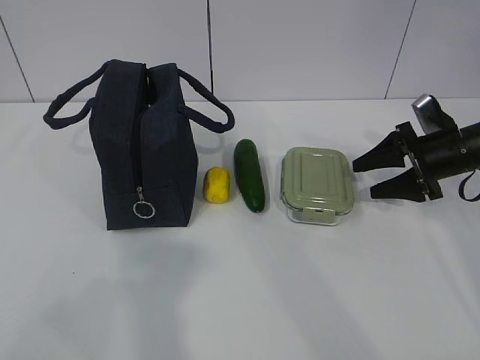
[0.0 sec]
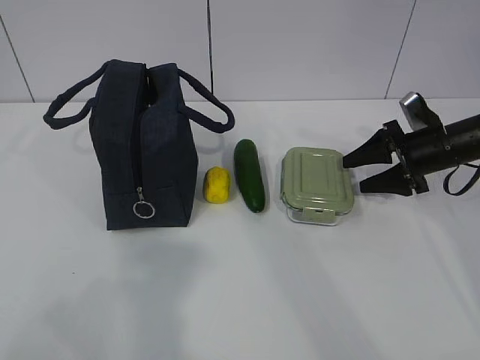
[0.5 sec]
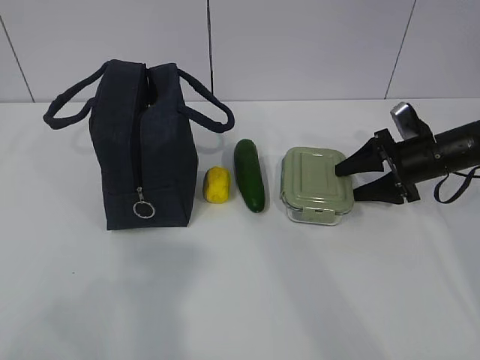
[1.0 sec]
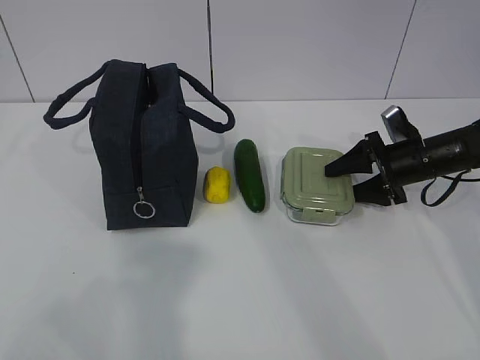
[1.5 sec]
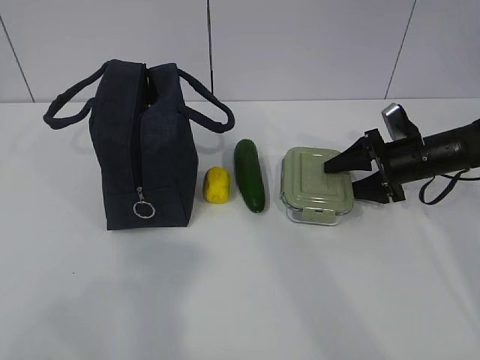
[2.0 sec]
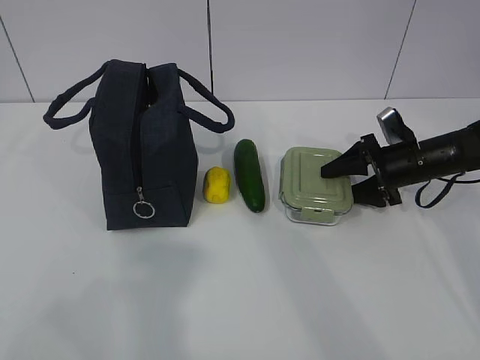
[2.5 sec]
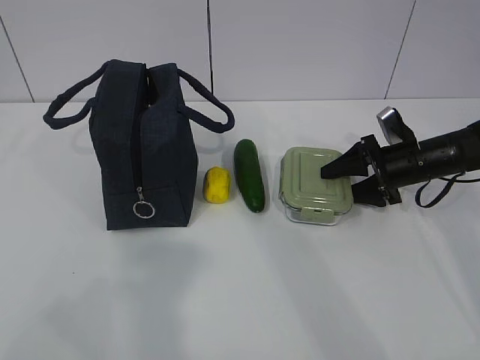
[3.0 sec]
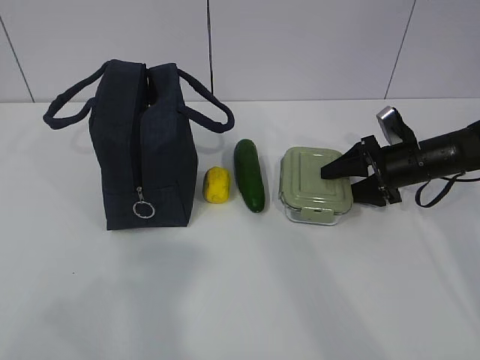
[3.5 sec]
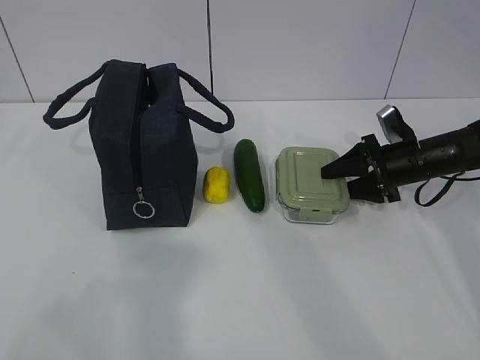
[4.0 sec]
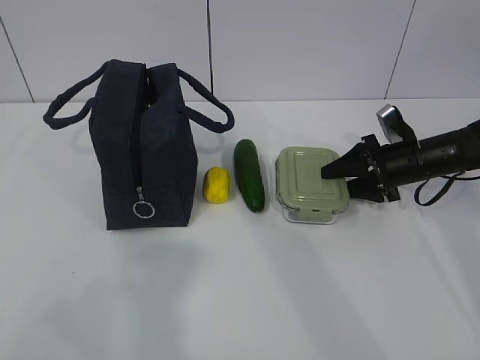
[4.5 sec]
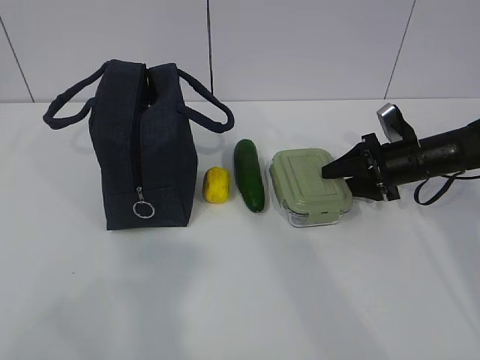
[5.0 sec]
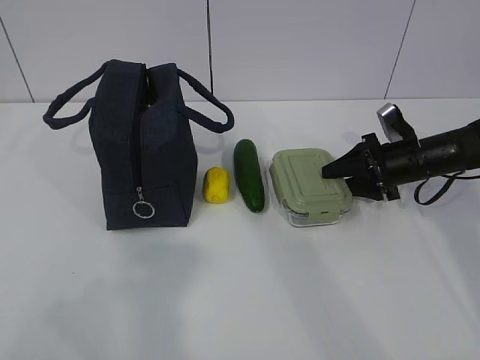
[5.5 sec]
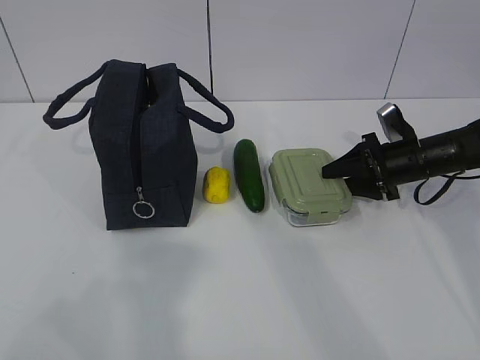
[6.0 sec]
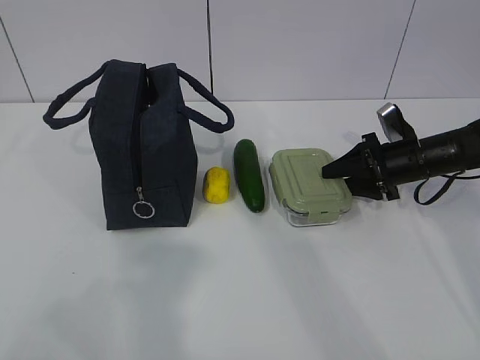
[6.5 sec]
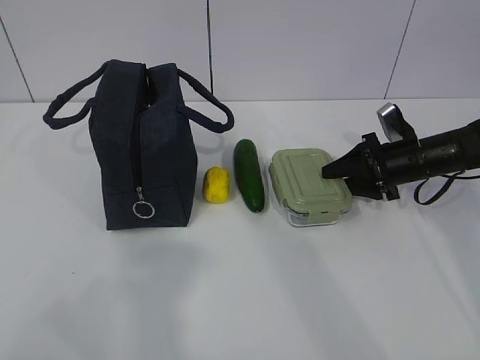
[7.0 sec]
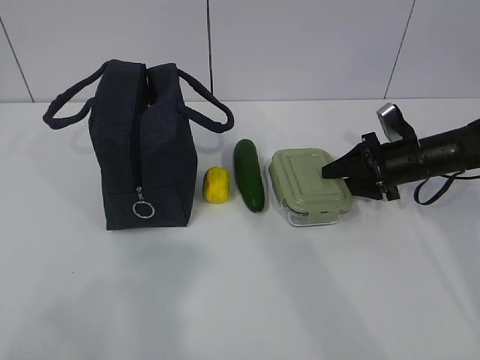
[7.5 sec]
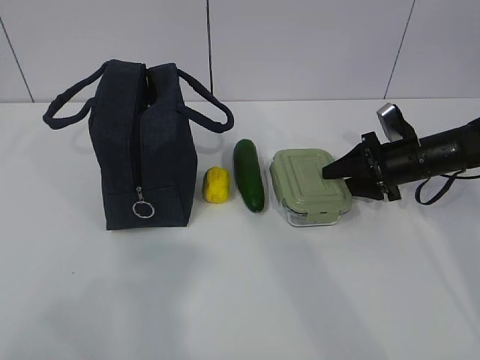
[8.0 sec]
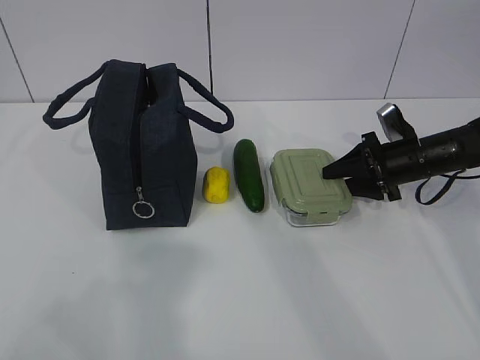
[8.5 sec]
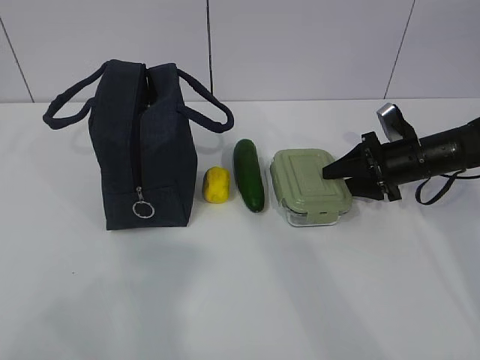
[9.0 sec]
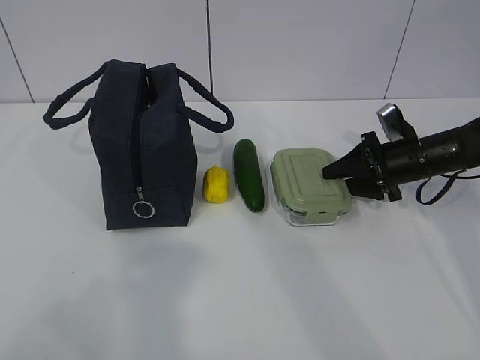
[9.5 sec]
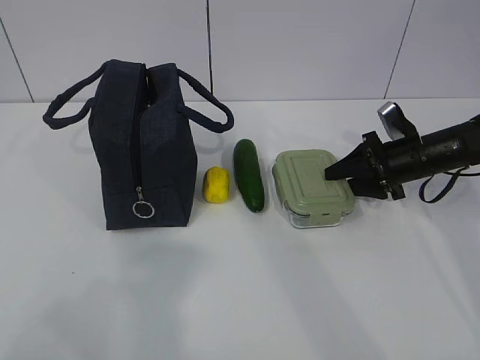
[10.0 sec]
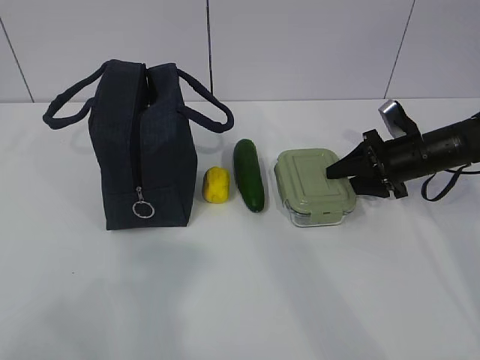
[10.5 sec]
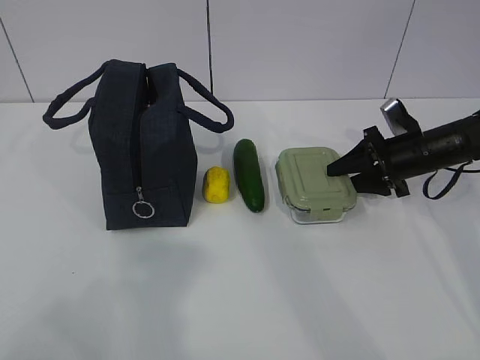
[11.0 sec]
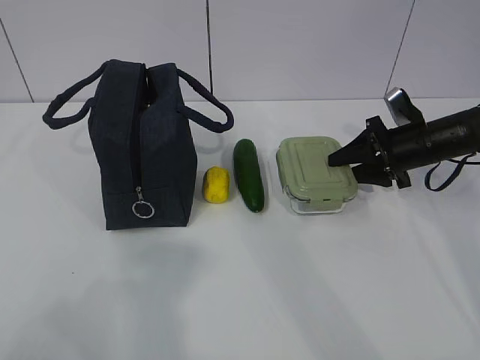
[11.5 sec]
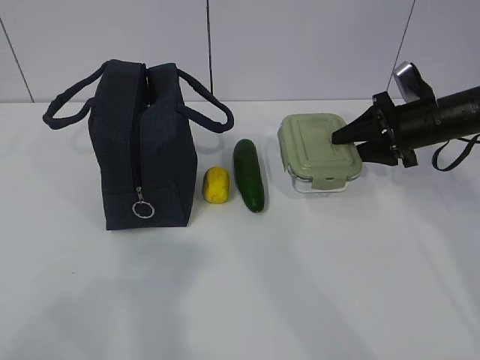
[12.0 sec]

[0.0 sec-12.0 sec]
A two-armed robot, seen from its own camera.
Step, 0.0 sec to 8.0 sec: Grab the lunch box with your right hand.
0.0 sec to 2.0 sec: The right gripper shifts by some 5 cm.
2.0 sec to 4.0 sec: Both grippers stay about where they are.
4.0 sec to 10.0 sec: Both grippers stay about where they are.
10.0 sec to 12.0 sec: The right gripper heads upward, covering roughly 5 cm.

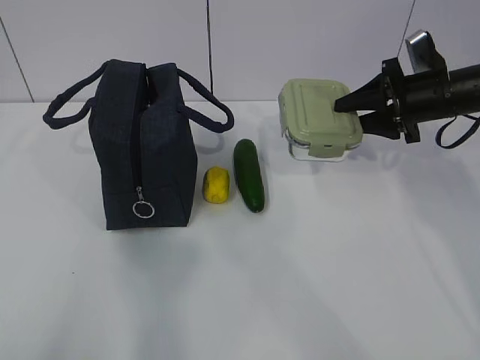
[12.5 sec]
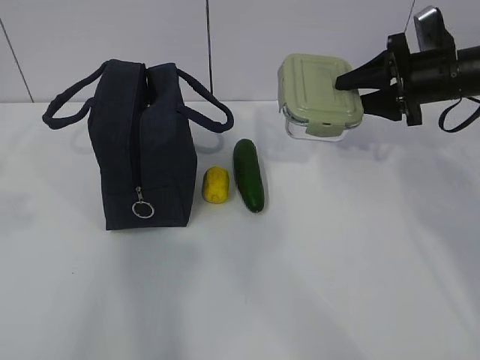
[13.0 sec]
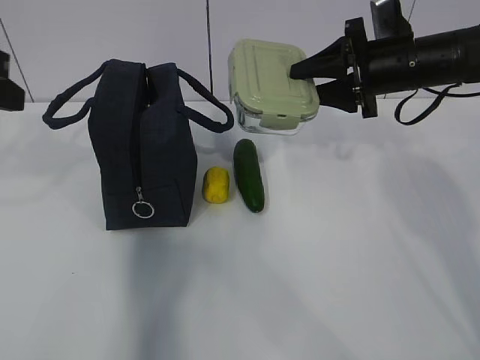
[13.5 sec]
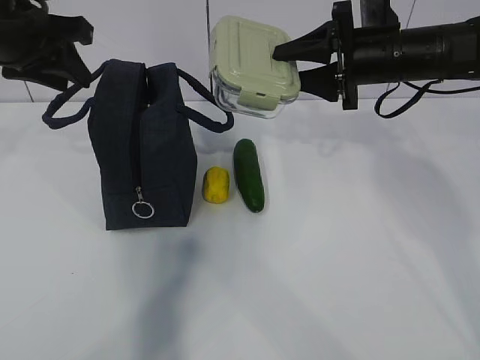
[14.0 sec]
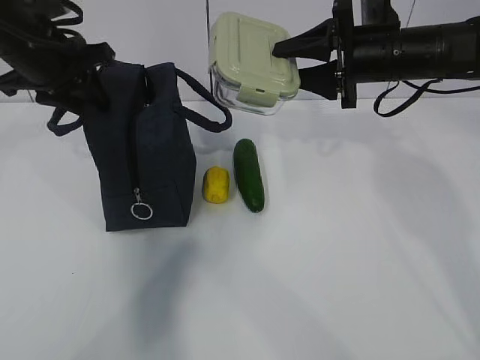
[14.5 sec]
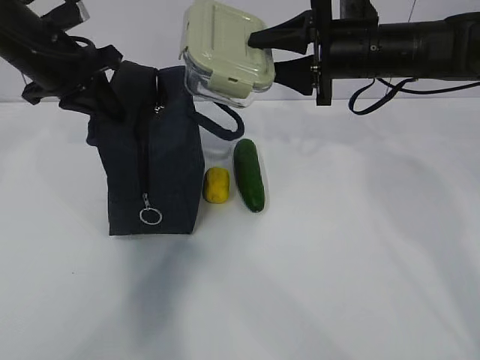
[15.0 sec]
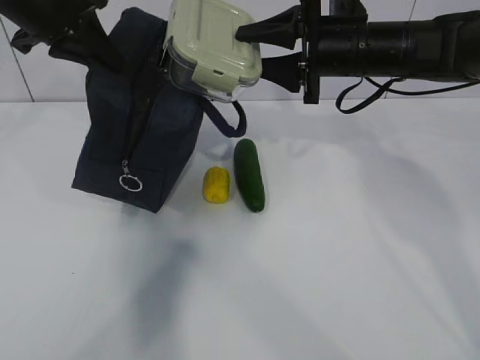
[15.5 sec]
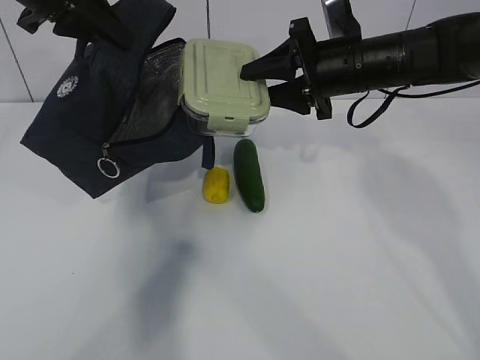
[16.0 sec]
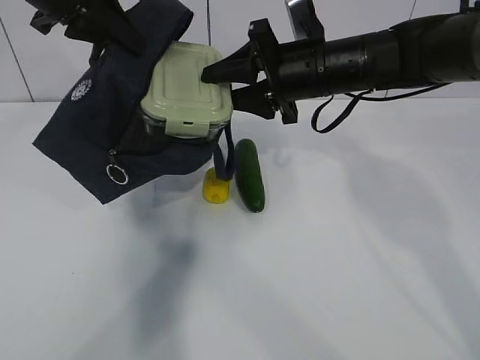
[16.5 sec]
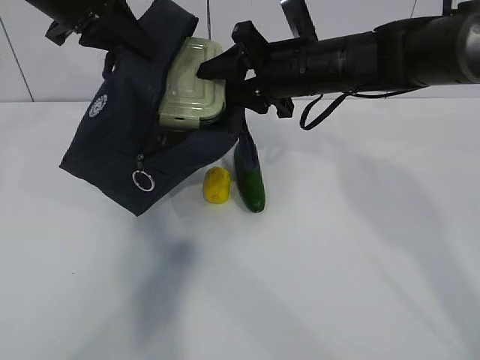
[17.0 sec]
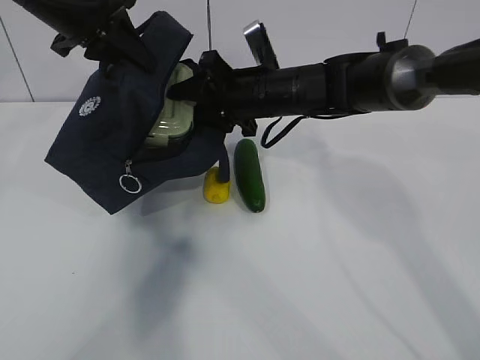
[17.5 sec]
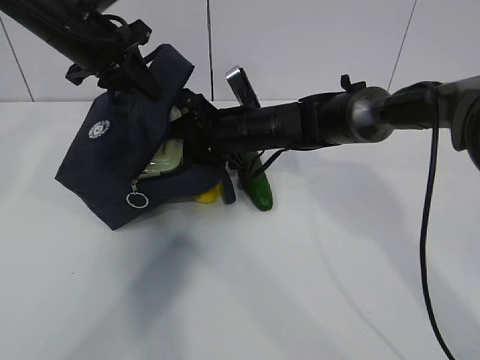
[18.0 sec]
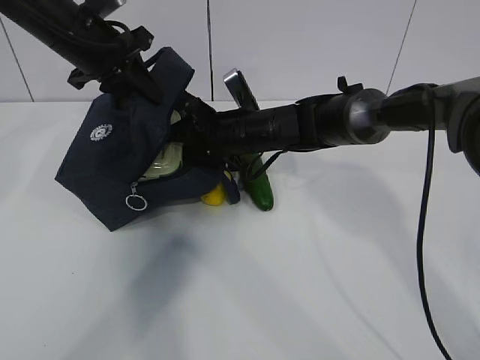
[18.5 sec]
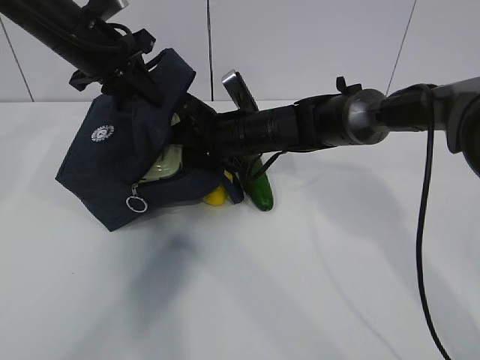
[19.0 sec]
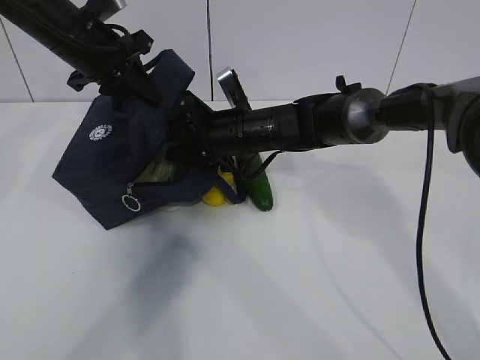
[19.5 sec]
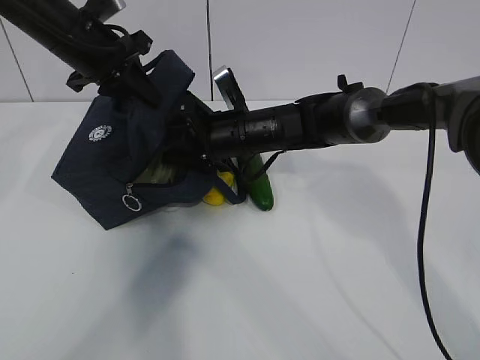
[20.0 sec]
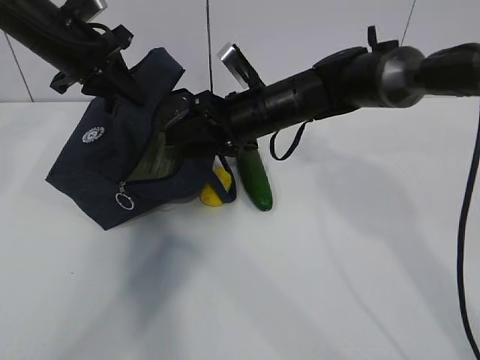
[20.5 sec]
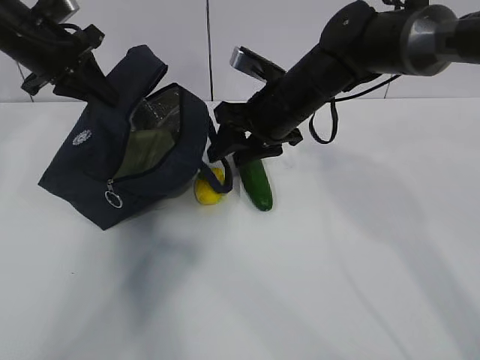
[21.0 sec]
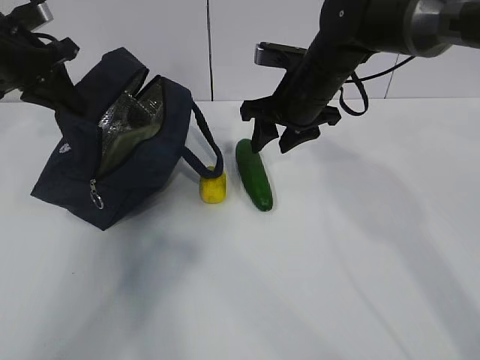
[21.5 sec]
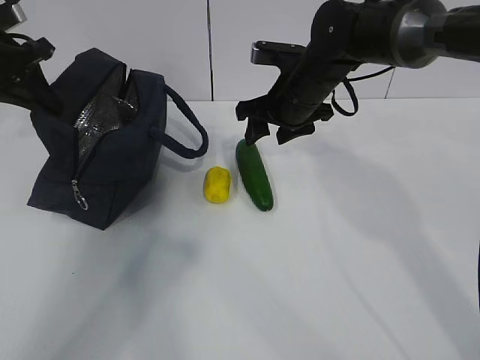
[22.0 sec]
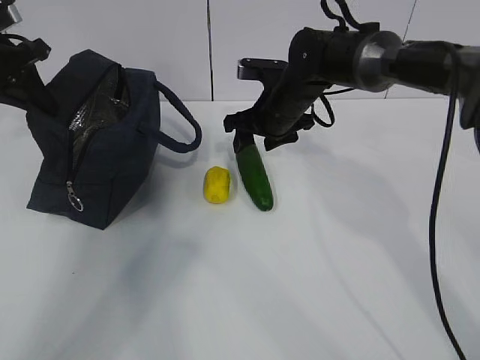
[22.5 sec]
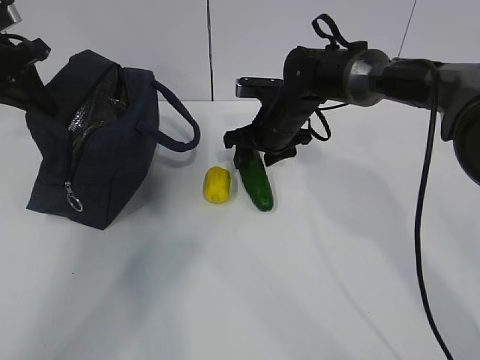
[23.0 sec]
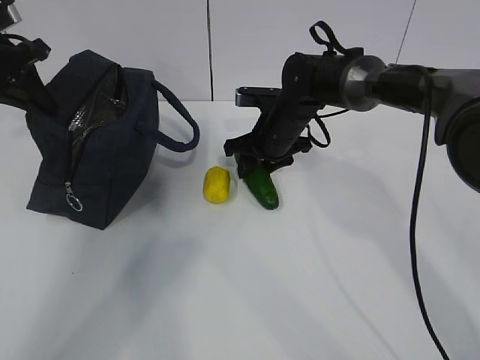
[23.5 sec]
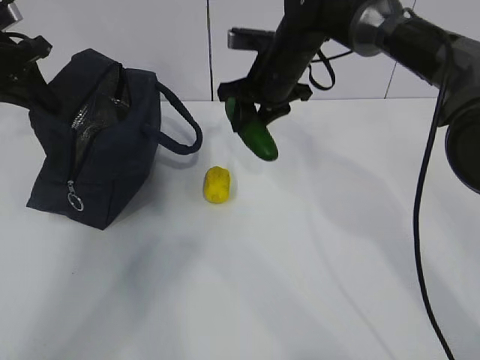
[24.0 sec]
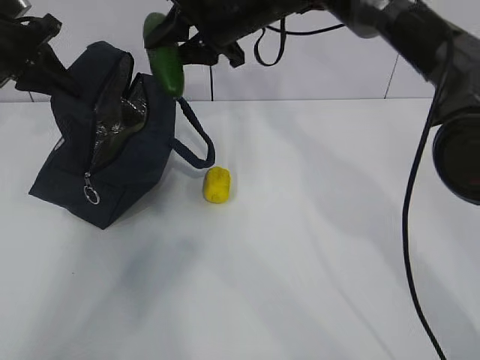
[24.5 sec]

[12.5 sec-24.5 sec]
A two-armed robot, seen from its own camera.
Step, 12.5 sec to 15.5 sec: Place it into the bag with your right hand.
Step, 16.0 sec to 18.5 sec: Grab the cucumber with your right hand.
Step, 19.0 sec to 20.0 sec: Place it into the bag with your right hand.
12.5 sec to 14.5 sec: The right gripper is displaced to the left and upward by roughly 10 cm; the left gripper shifts approximately 35 cm forward.
14.5 sec to 16.5 sec: The right gripper travels to the left by approximately 10 cm, while the left gripper goes some 10 cm upward, and closes.
16.5 sec to 18.5 sec: The right gripper heads downward and to the left, covering roughly 15 cm. Meanwhile the left gripper heads downward, covering some 10 cm.
18.5 sec to 20.5 sec: The right gripper moves about 5 cm.
20.5 sec to 22.5 sec: The right gripper ends up about 5 cm from where it was. The left gripper is displaced to the left by some 10 cm.
22.5 sec to 24.5 sec: The right gripper shifts about 15 cm upward and to the left.

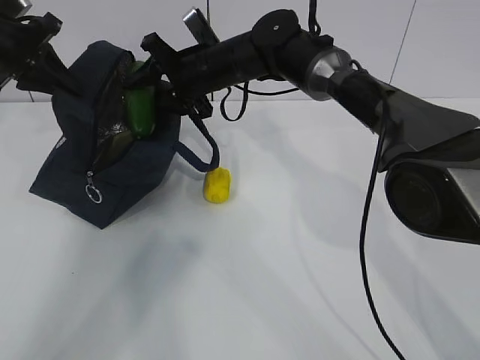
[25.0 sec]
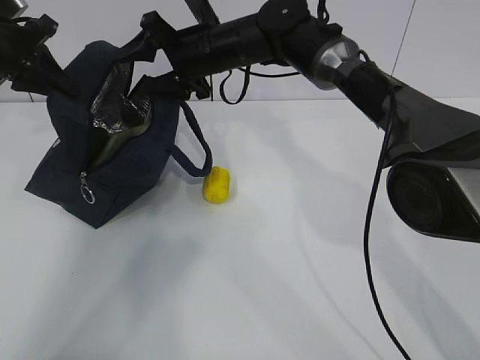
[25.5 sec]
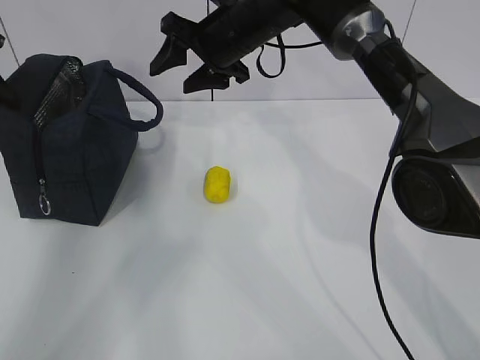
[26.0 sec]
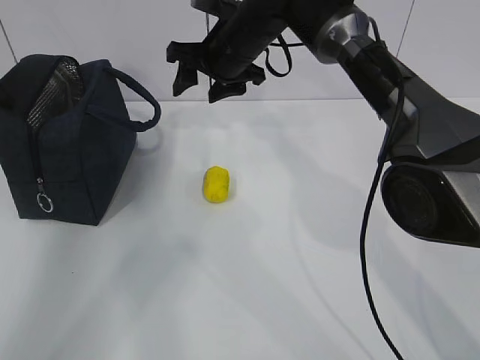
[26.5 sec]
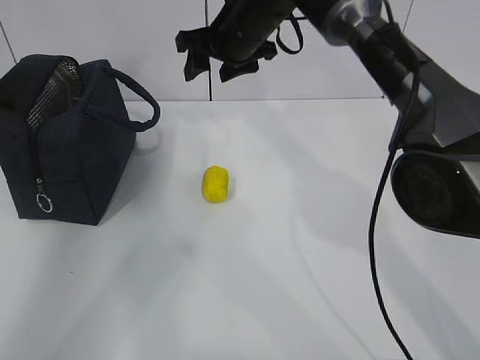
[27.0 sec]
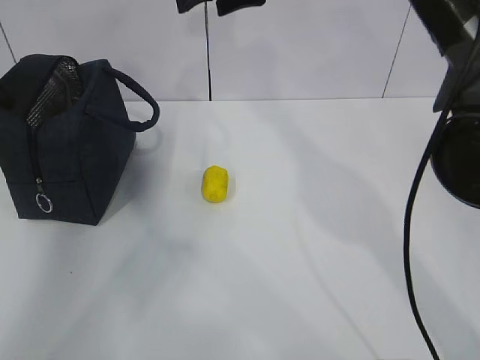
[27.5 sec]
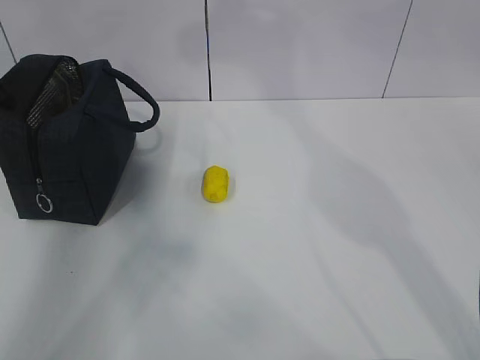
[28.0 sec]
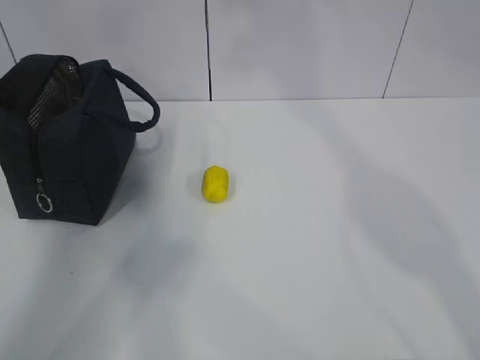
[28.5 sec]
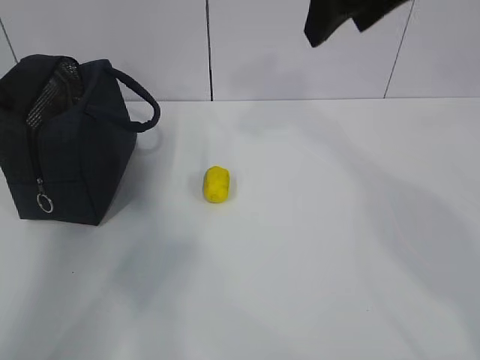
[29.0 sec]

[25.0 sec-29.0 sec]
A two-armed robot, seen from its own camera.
25.0 sec to 27.0 sec: The right gripper is displaced upward by roughly 5 cm; the left gripper travels to the left by about 10 cm.
27.0 sec to 29.0 sec: The right gripper is displaced backward, upward and to the right by about 25 cm.
